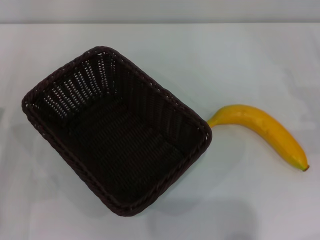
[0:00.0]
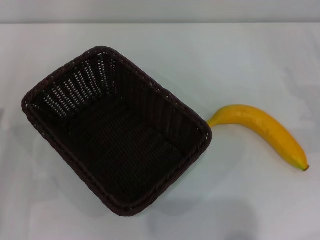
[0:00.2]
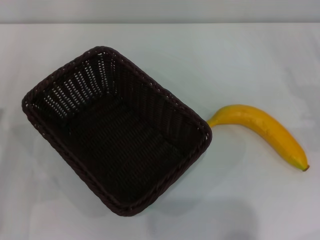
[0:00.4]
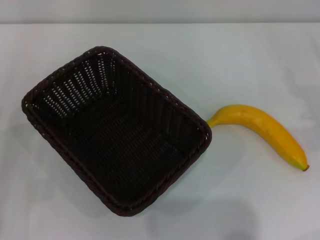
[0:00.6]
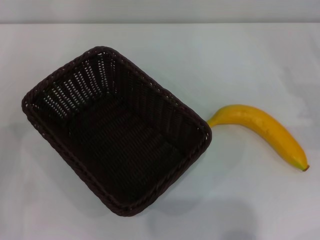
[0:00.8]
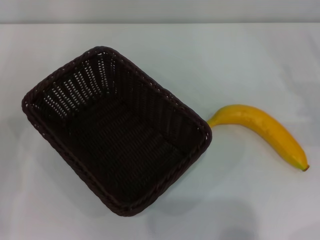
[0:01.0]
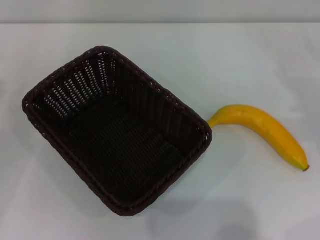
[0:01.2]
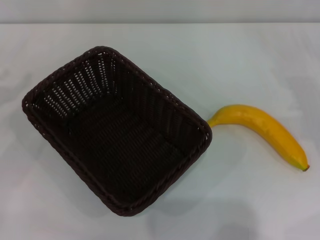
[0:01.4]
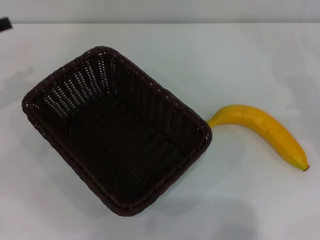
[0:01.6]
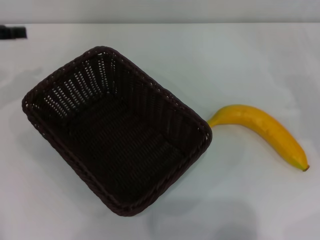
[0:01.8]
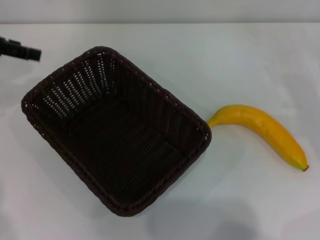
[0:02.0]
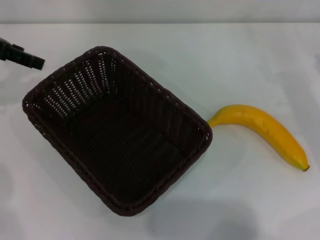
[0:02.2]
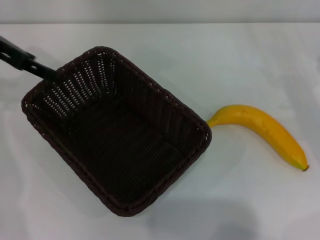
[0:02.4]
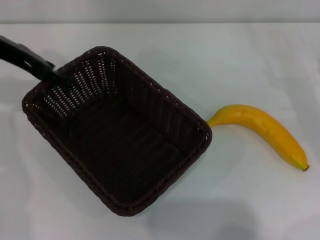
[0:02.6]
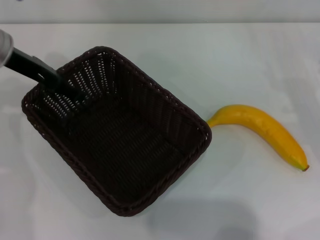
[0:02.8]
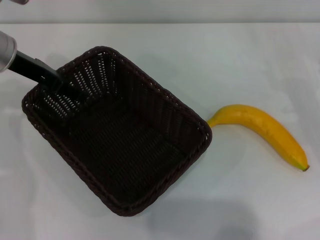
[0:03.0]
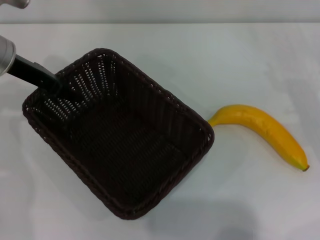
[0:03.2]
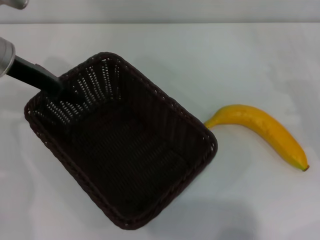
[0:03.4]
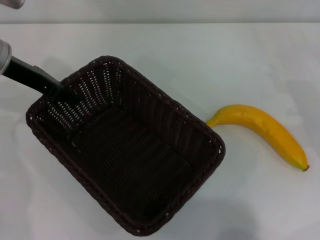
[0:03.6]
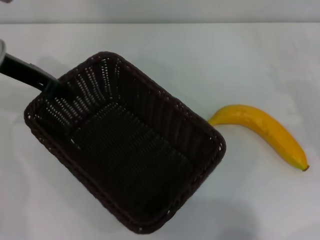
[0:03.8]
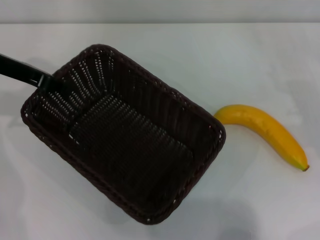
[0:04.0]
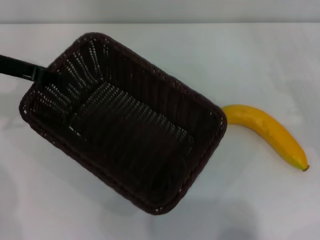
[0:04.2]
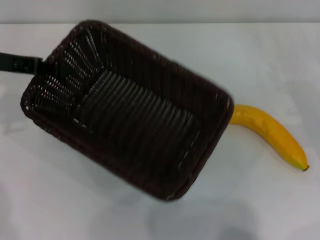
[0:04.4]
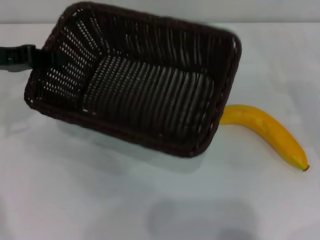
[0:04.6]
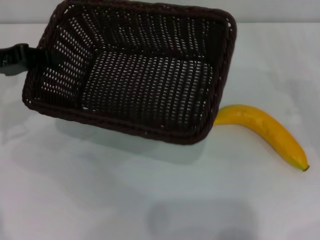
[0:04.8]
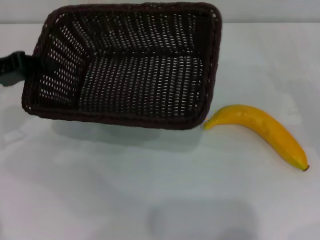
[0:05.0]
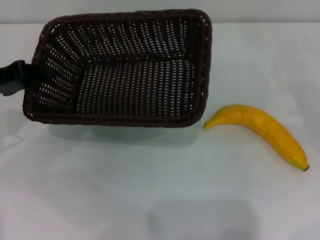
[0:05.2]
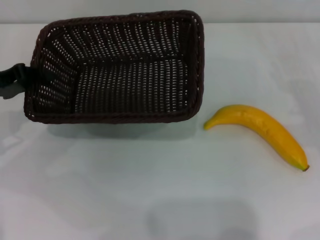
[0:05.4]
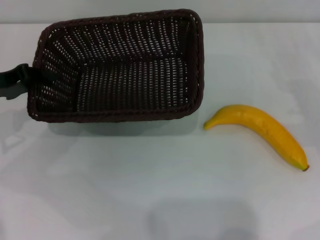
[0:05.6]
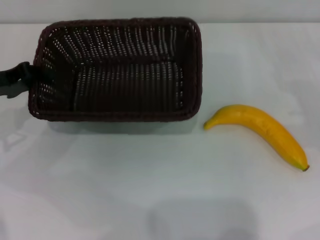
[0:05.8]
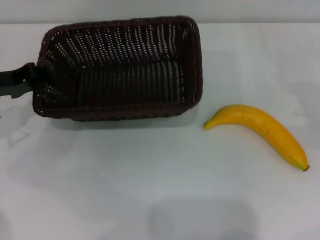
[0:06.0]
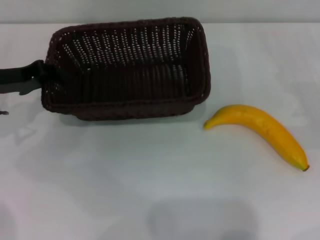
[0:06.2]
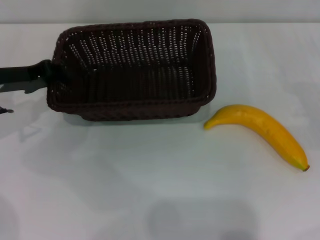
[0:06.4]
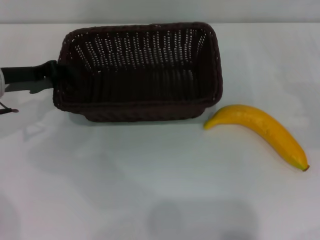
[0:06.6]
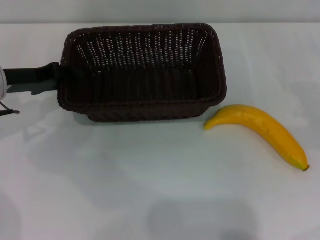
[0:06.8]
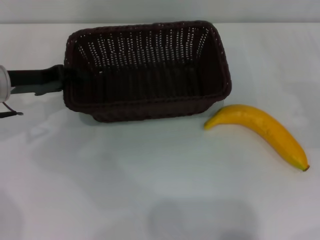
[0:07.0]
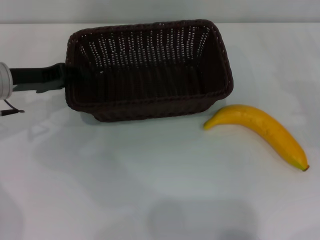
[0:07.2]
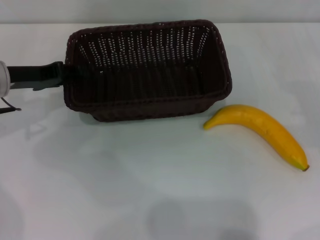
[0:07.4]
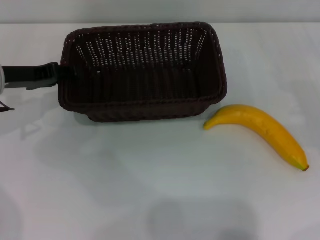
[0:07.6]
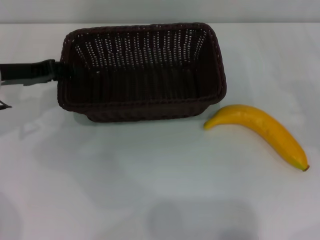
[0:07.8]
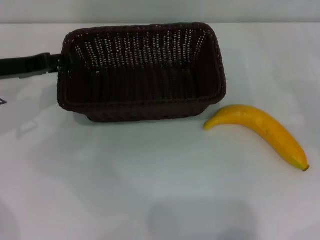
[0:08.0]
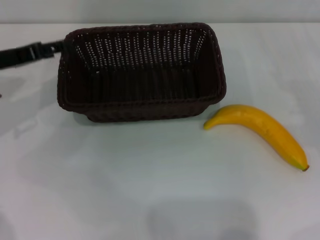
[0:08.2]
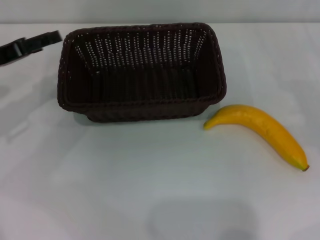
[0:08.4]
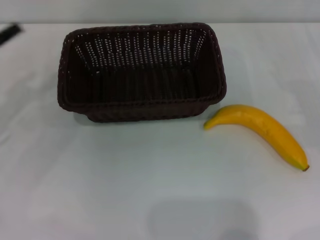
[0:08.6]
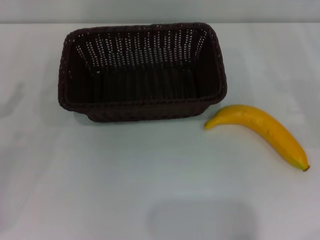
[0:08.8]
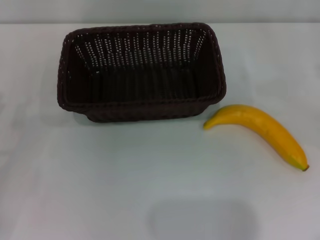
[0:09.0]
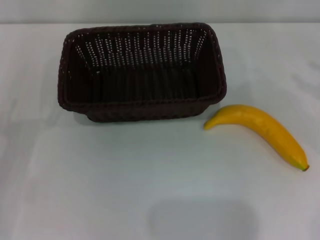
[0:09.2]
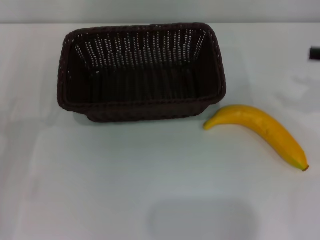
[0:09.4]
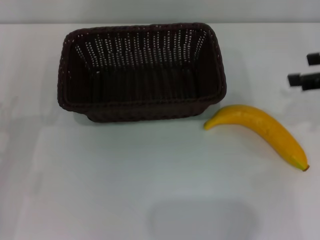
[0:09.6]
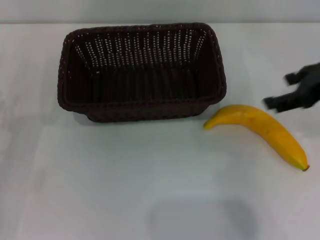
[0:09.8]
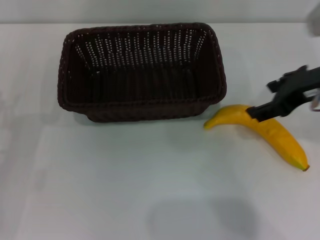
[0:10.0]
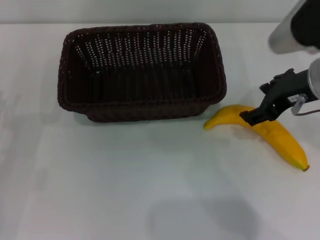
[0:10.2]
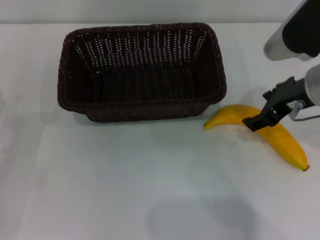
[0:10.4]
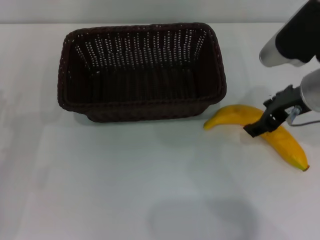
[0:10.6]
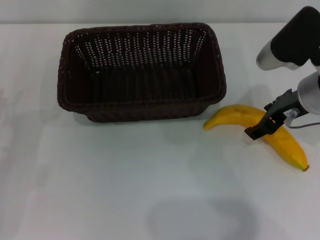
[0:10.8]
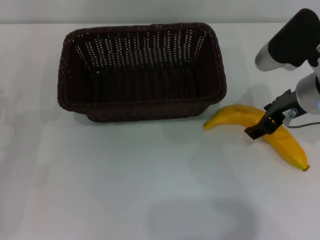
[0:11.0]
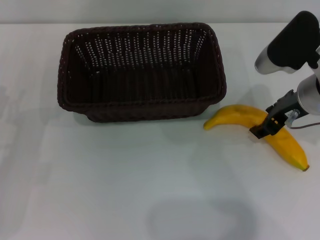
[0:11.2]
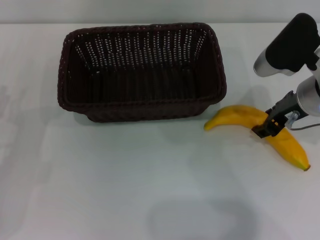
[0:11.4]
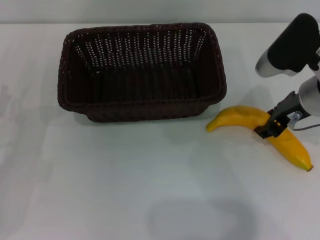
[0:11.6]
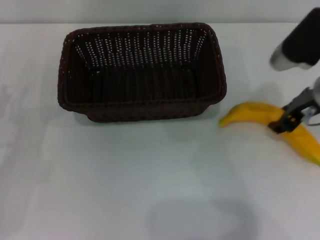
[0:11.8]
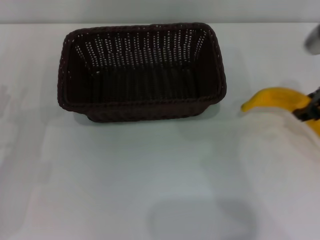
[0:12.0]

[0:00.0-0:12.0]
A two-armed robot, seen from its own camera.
Step, 0:00.0 to 0:04.2: Pick up the dark basket with the left gripper.
Step, 0:04.4 to 0:08.4: Place the dark basket in the center of view with the left gripper.
0:00.0 to 0:01.6: The left gripper travels upward and forward by about 20 cm.
0:01.6 to 0:03.0: The left gripper moves to the right and forward, about 15 cm.
0:03.0 to 0:04.4: The left gripper heads to the left, covering about 5 cm, and closes its fingers.
0:04.4 to 0:06.0: The left gripper moves downward, roughly 5 cm.
0:06.0 to 0:07.6: The left gripper opens.
0:07.6 to 0:09.0: The left gripper moves backward and to the left, some 15 cm, and opens up.
0:09.0 to 0:10.4: The right gripper is displaced to the left by approximately 20 cm.
0:10.4 to 0:12.0: The right gripper goes roughly 5 cm to the right, and closes up.

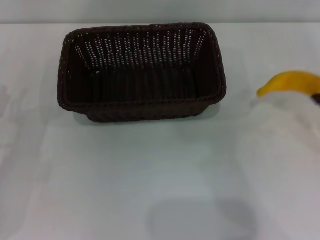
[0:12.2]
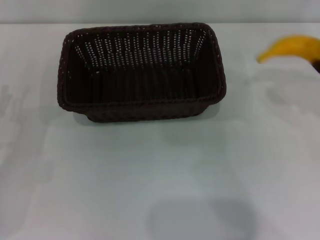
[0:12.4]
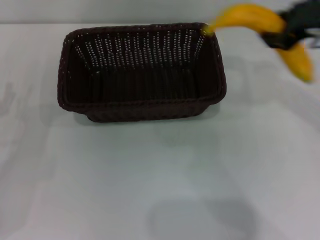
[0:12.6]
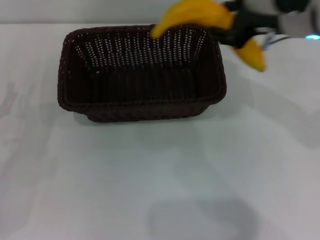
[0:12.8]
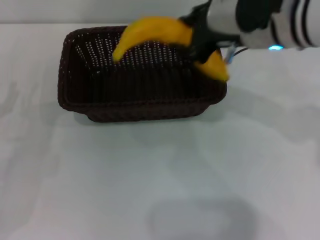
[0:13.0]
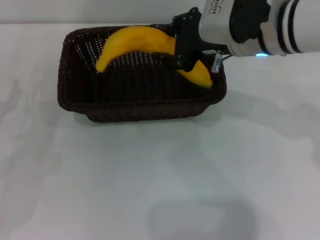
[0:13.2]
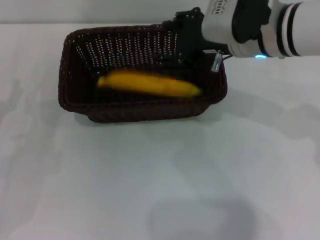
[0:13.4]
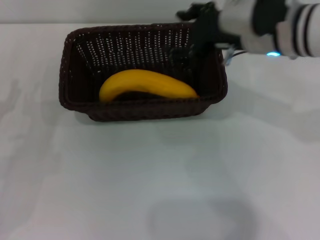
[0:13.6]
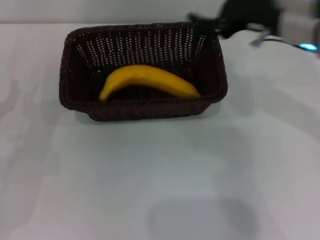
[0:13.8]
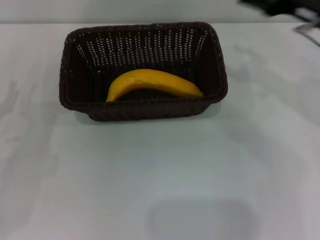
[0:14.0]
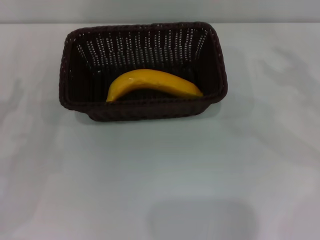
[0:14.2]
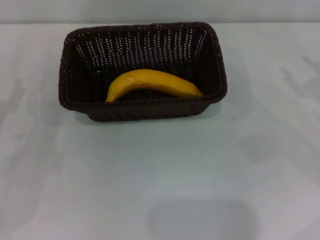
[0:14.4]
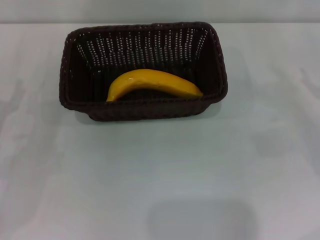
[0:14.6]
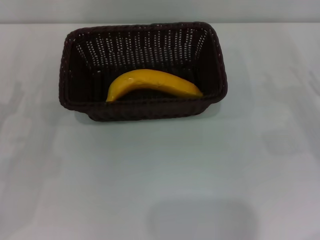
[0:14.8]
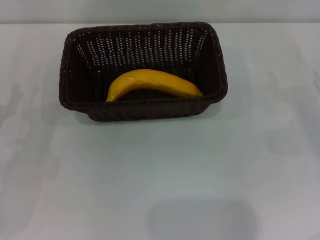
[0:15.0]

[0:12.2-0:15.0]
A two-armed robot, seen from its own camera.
Step, 0:12.4 to 0:13.6: Place the banana into the dark basket with the right gripper.
0:12.2 to 0:13.6: The right gripper goes roughly 15 cm to the left, and opens its fingers.
0:13.6 to 0:15.0: The right gripper heads to the right and downward, covering some 25 cm.

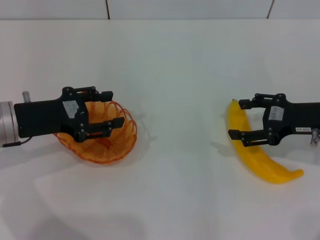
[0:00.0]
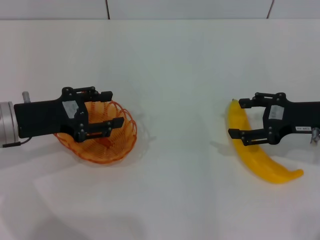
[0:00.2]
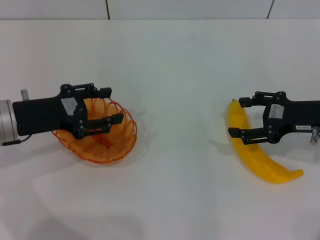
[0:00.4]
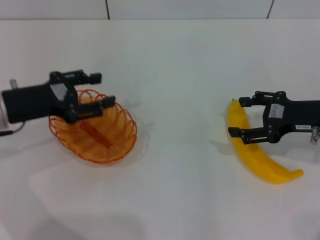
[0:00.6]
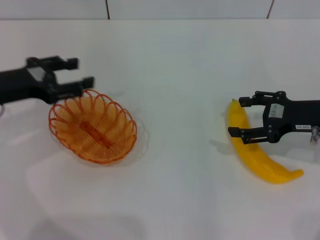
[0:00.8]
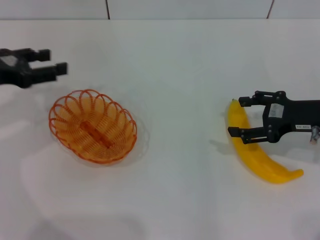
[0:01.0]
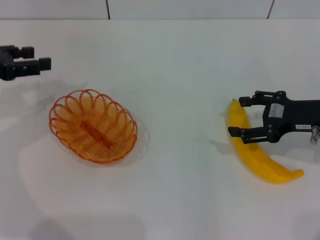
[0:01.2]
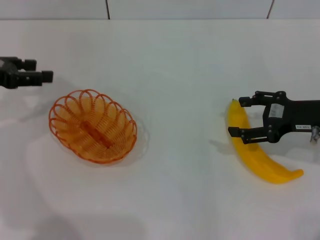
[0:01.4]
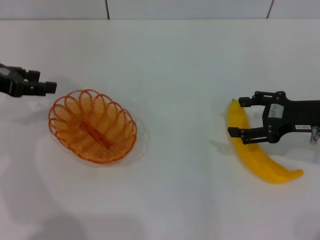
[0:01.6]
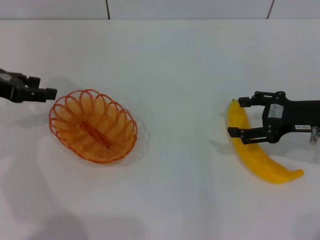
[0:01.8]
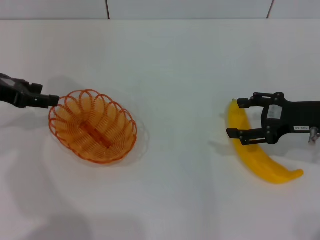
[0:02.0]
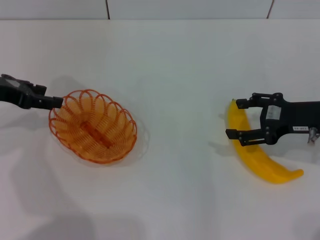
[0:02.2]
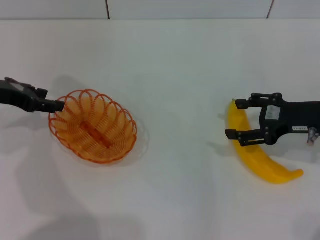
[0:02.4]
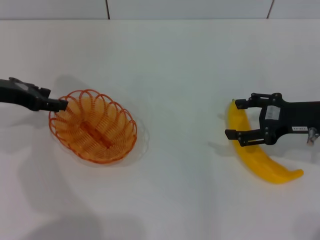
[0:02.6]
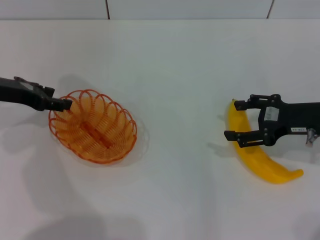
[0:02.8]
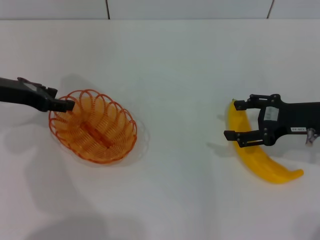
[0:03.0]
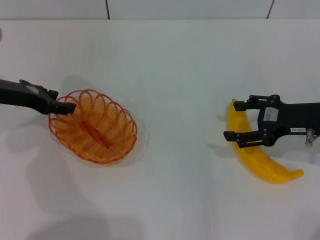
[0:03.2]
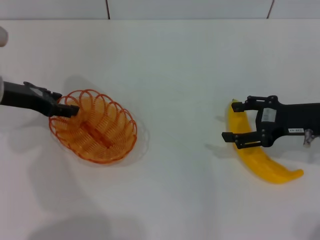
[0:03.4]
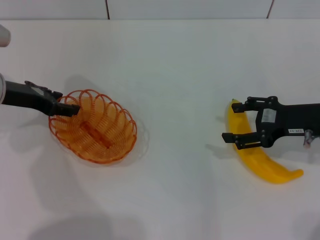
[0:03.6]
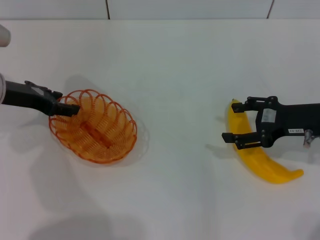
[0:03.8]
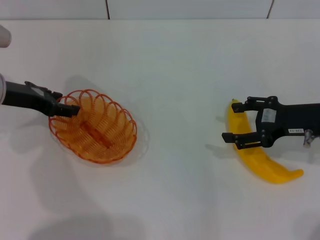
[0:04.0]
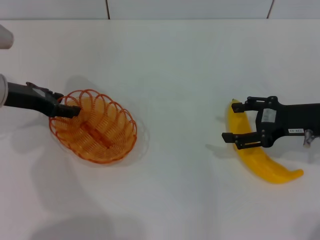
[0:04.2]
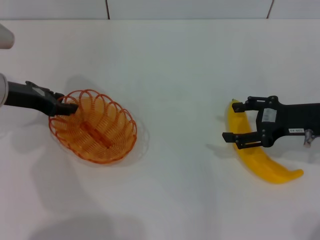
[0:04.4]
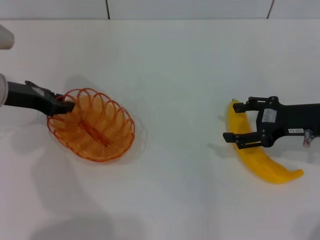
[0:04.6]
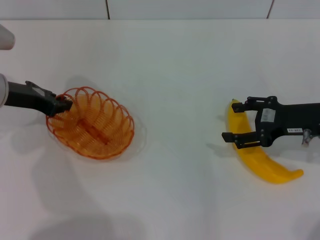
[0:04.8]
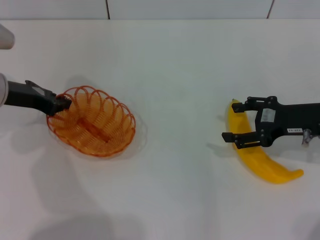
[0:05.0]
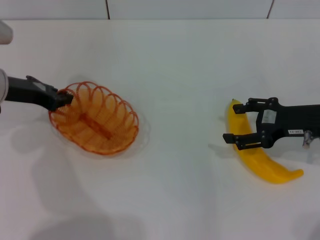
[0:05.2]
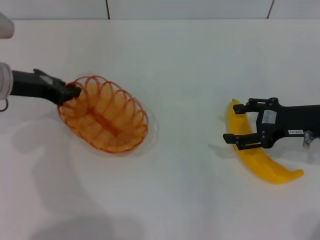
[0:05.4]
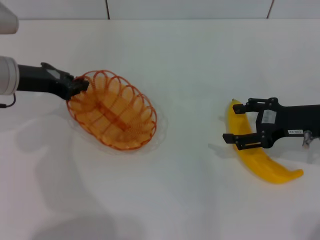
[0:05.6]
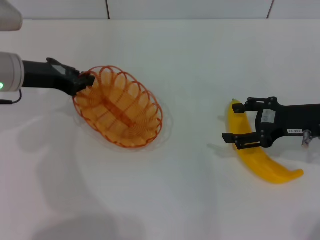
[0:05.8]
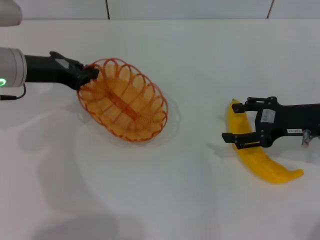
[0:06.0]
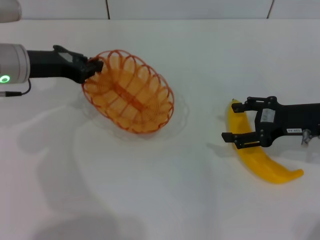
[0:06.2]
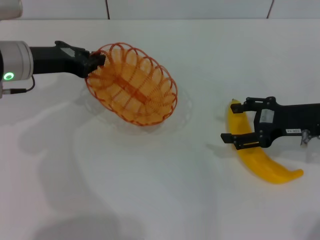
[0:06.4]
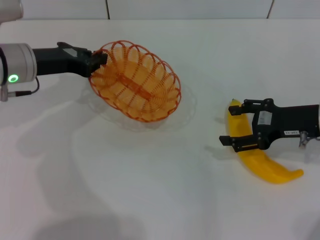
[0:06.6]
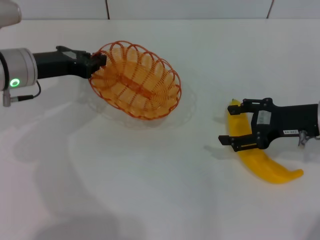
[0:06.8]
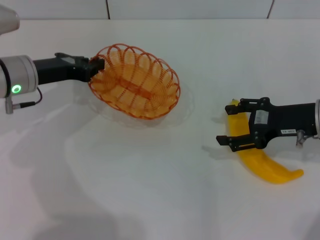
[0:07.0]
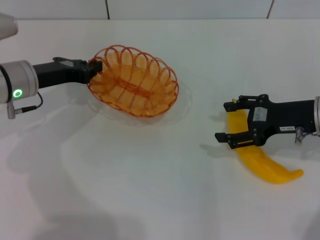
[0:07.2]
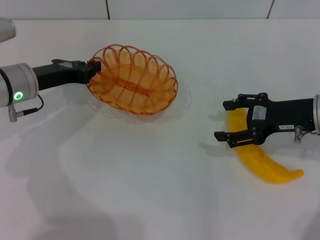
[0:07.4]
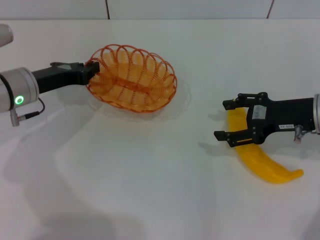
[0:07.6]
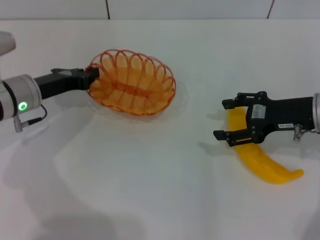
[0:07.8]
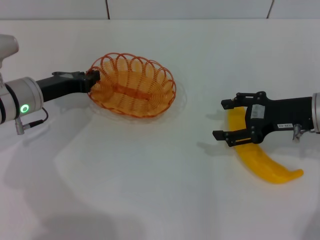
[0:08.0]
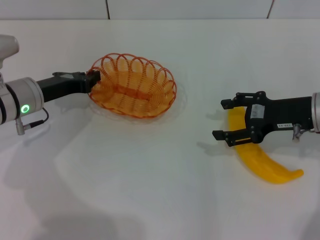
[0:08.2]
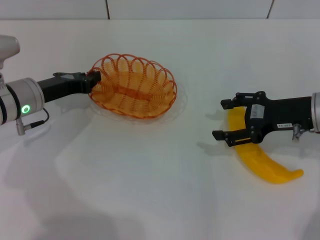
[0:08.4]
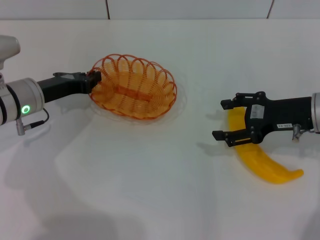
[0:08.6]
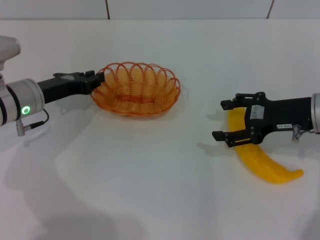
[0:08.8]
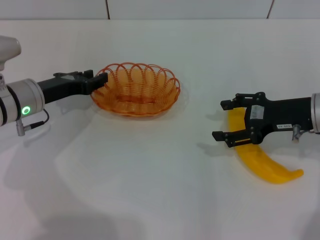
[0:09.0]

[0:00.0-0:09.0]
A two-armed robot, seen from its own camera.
Step, 0:00.0 to 0:06.0: Pick up the basket with the left gripper.
0:00.0 to 0:01.6: The left gripper goes roughly 10 cm to the left and upward.
0:01.6 to 0:03.0: The left gripper moves roughly 5 cm.
0:03.0 to 0:04.4: The grippers stay close to where they were, moving slightly.
0:04.4 to 0:06.0: The left gripper closes.
0:06.0 to 0:07.6: The left gripper moves downward, some 5 cm.
0:07.6 to 0:09.0: The left gripper opens its fingers.
